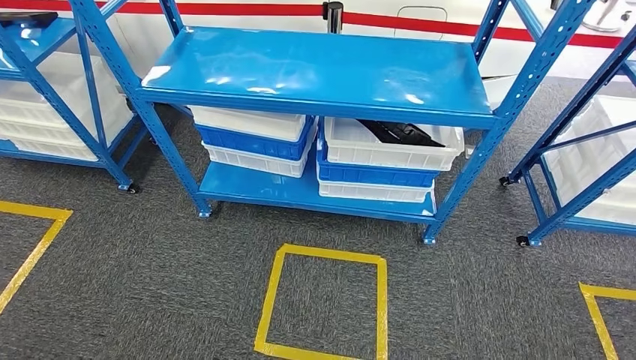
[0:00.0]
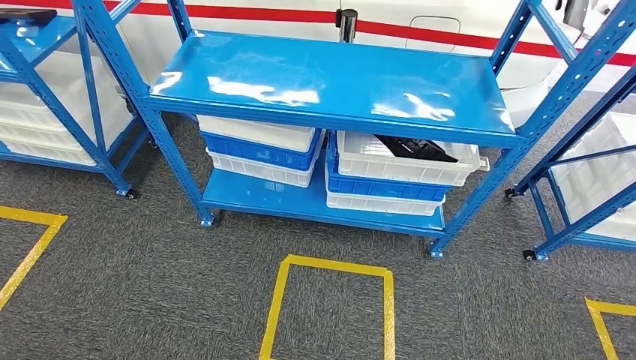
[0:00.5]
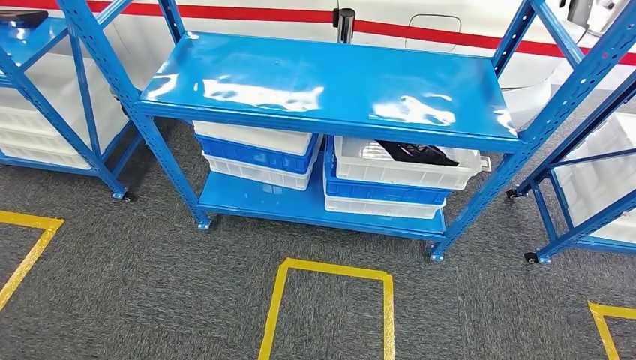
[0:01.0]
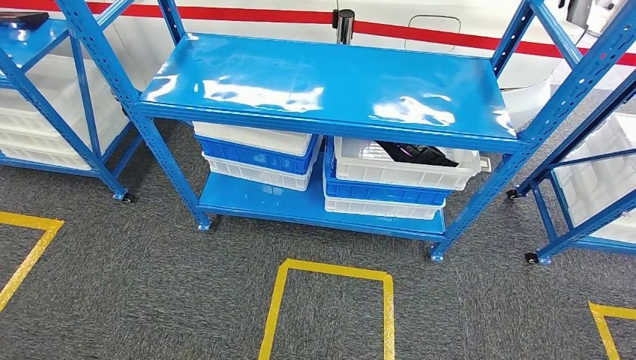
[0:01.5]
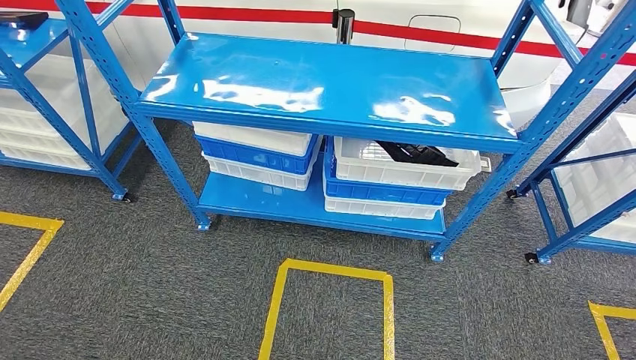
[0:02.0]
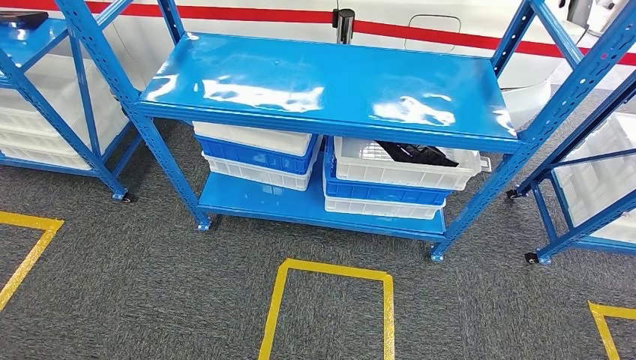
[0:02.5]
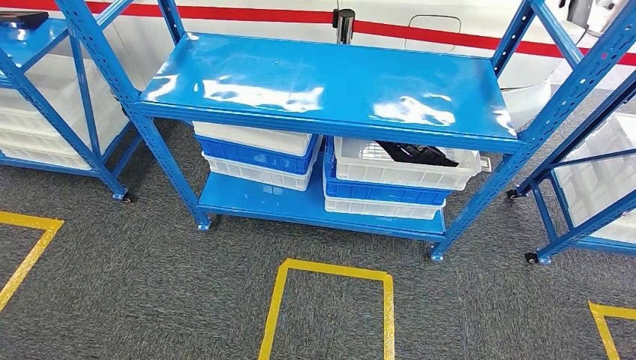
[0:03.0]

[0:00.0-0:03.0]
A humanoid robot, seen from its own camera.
Step, 0:00.0 to 0:03.0: Move to the initial position of the shelf.
